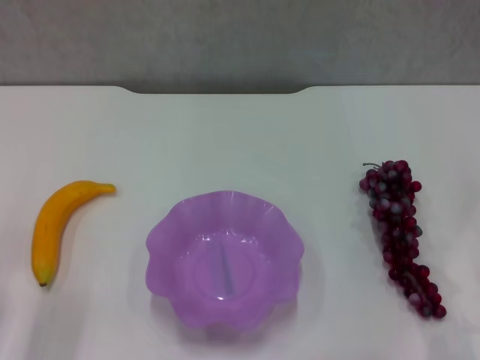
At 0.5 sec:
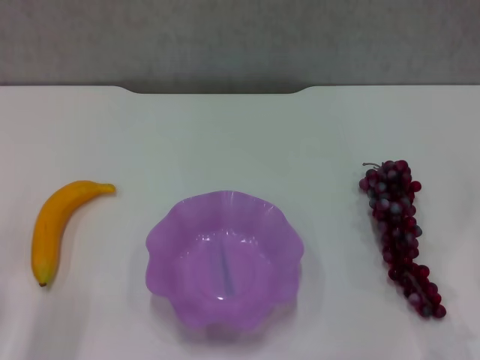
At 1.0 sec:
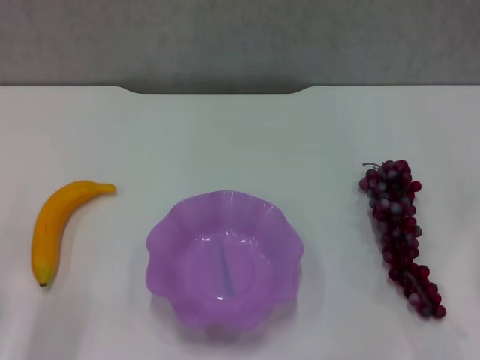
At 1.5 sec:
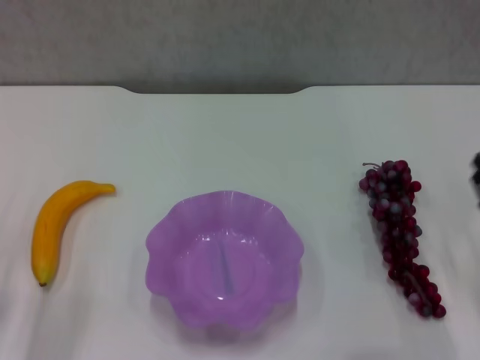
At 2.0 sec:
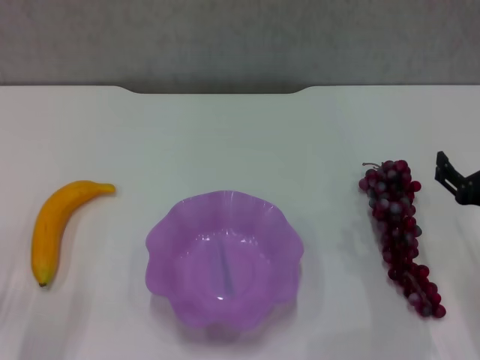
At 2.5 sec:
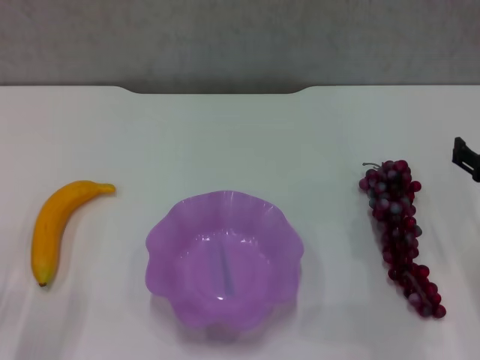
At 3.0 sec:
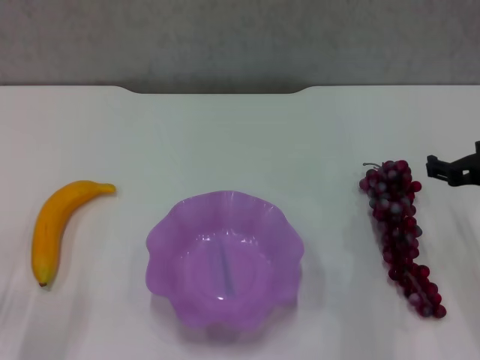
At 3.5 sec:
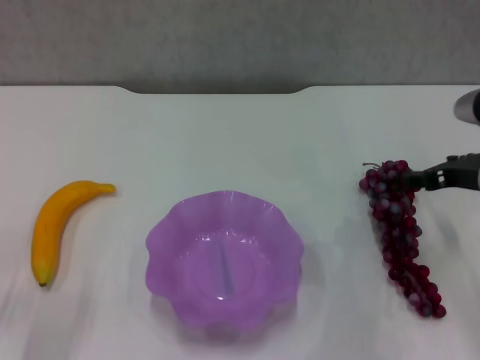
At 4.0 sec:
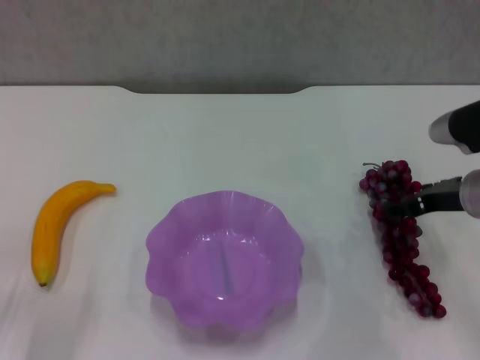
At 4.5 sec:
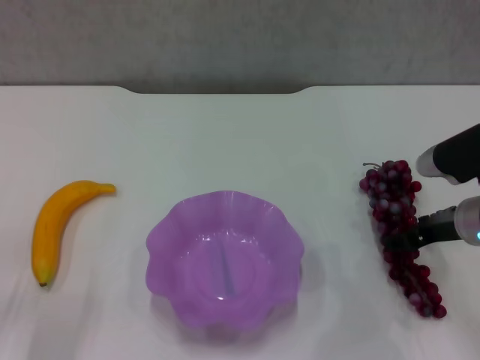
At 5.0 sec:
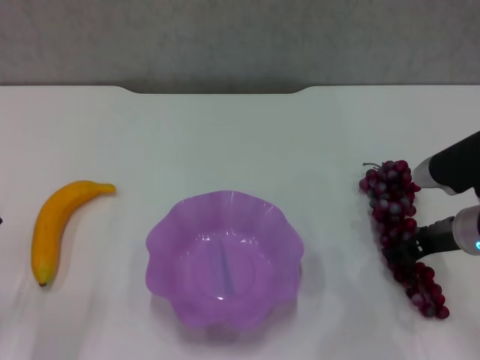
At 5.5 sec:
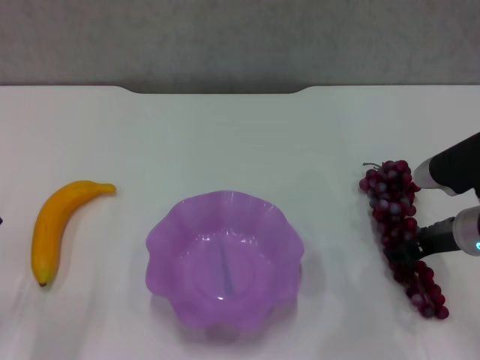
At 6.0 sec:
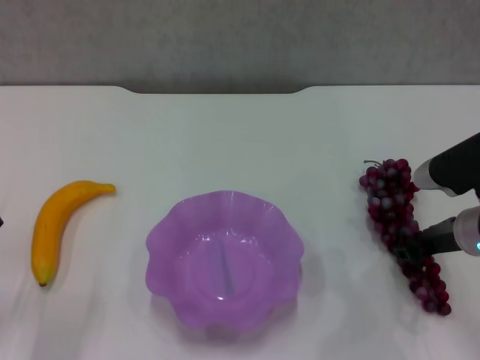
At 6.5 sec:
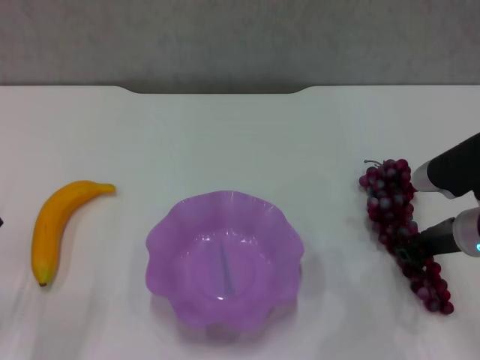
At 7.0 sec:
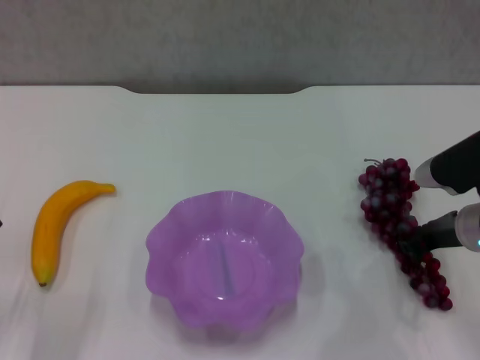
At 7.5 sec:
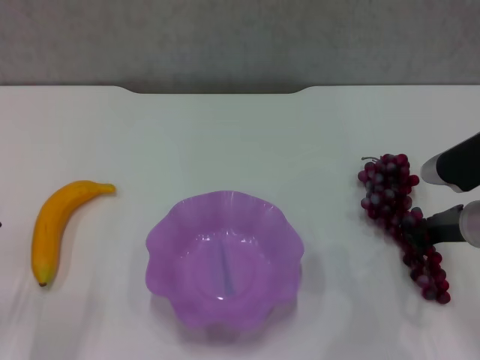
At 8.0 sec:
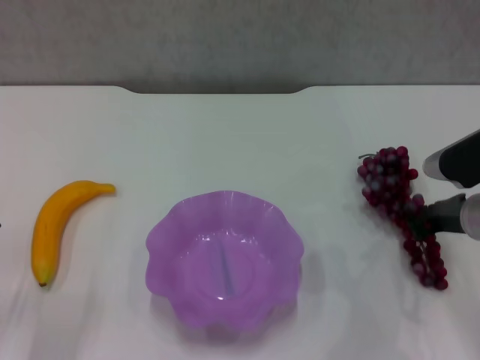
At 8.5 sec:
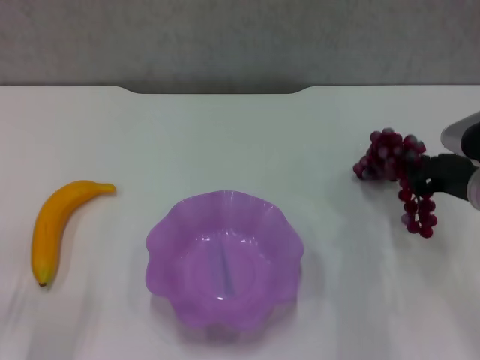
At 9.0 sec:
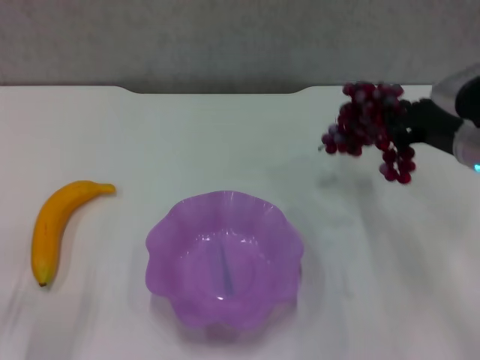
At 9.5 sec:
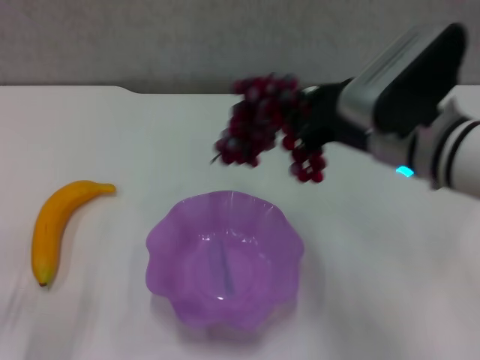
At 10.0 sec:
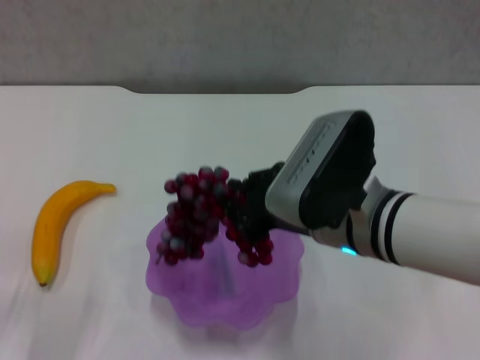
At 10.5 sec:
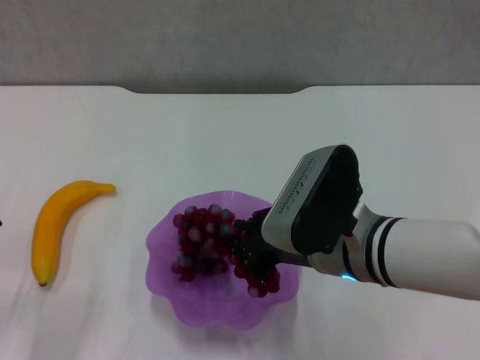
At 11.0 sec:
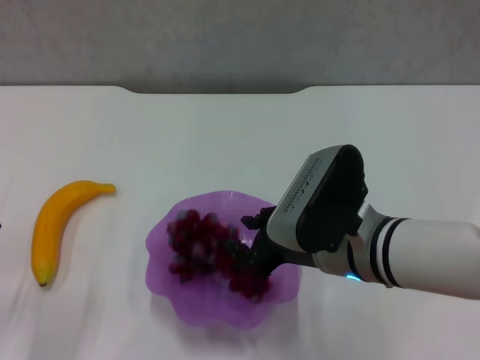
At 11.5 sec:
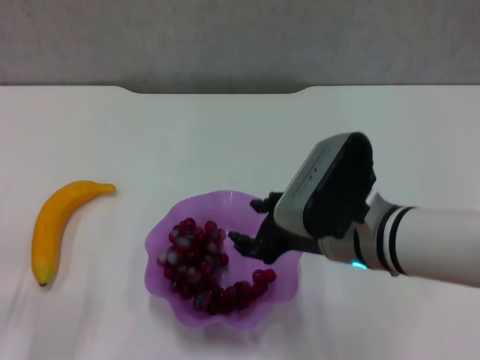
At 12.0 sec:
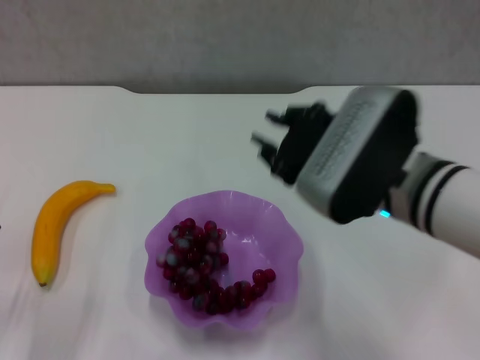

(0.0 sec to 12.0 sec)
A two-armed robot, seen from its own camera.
Step, 0.0 sec - 6.5 sec: Grasp the grape with right gripper.
Step, 7.5 sec - 11.5 sec: Place the grape in the purple plate with right gripper.
0.0 sec - 2.0 sec: The right gripper shifts by roughly 5 cm, and opens its fingers.
2.0 sec - 4.0 sec: The right gripper heads forward, covering roughly 10 cm.
4.0 sec - 6.0 sec: The grippers move only a little.
6.0 sec - 8.0 sec: The right gripper closes up.
8.0 sec - 10.0 sec: The right gripper is displaced to the left and upward by some 20 cm.
10.0 sec - 12.0 sec: The right gripper opens up.

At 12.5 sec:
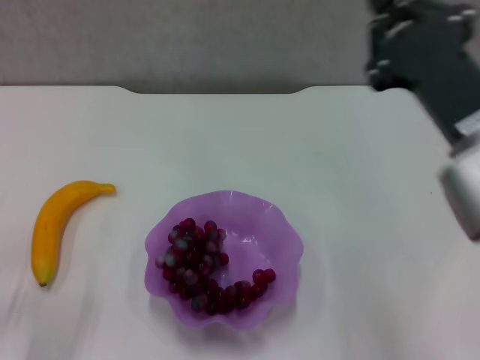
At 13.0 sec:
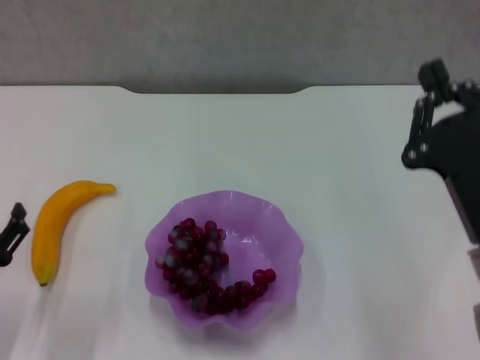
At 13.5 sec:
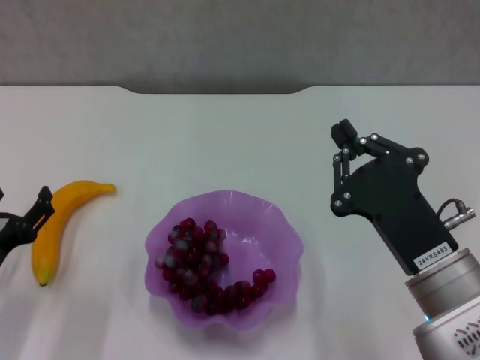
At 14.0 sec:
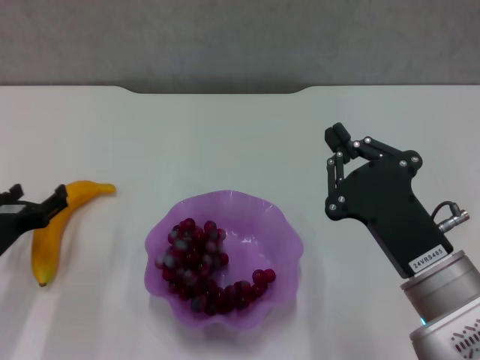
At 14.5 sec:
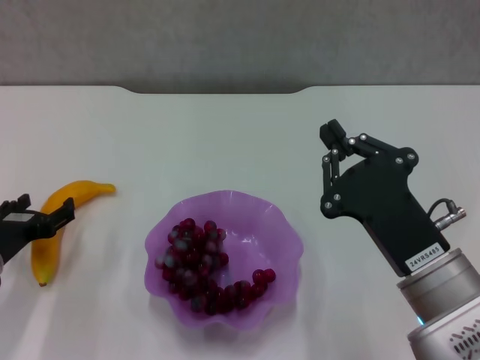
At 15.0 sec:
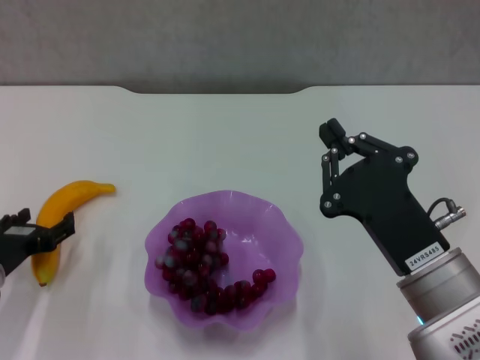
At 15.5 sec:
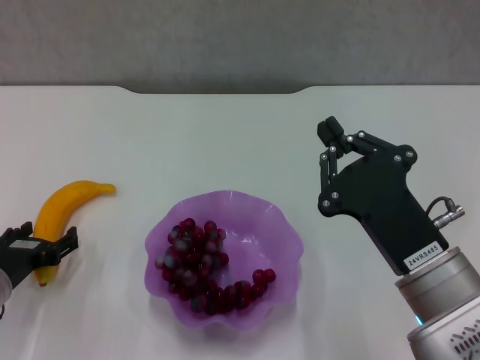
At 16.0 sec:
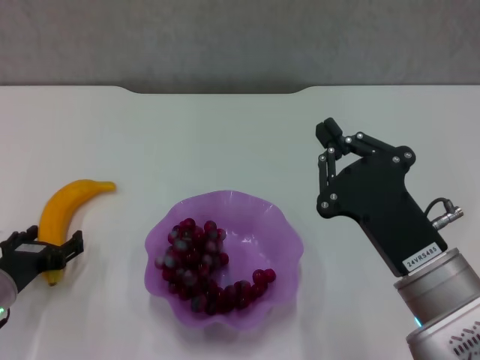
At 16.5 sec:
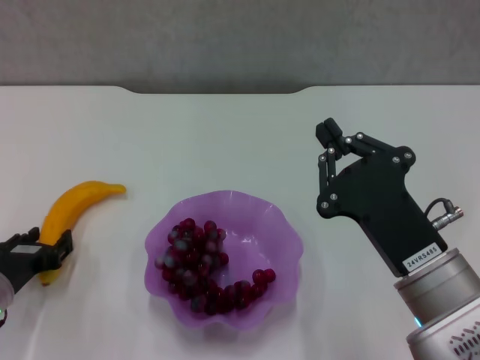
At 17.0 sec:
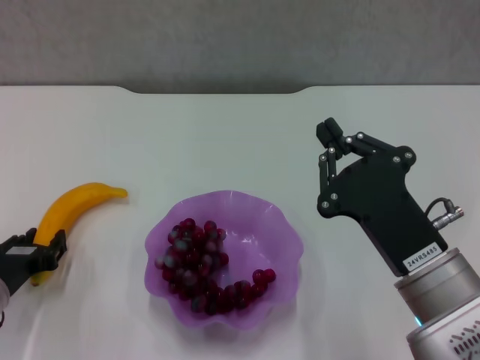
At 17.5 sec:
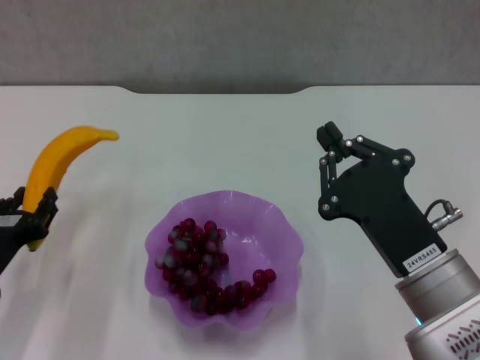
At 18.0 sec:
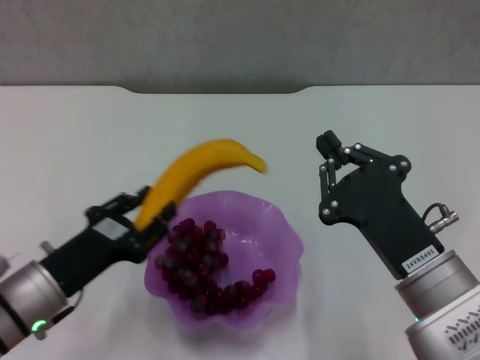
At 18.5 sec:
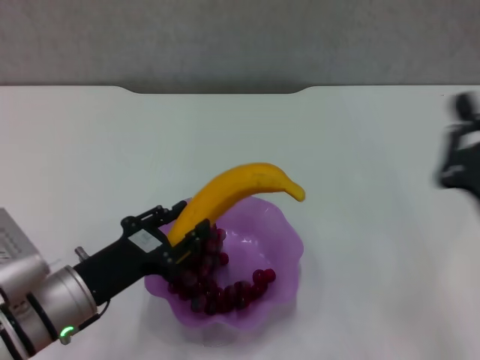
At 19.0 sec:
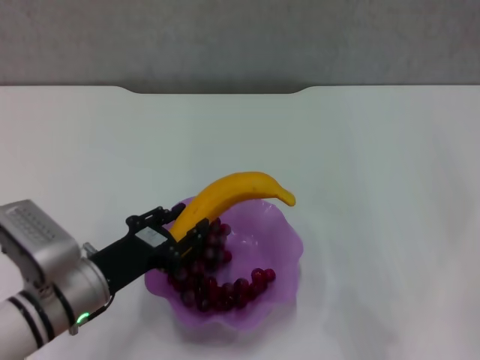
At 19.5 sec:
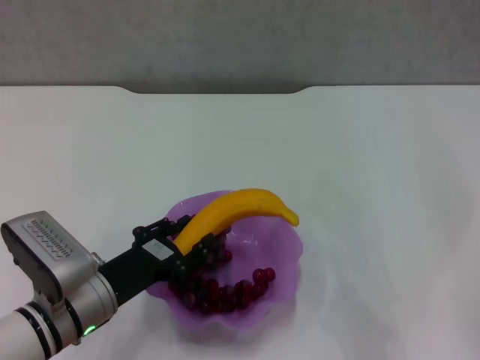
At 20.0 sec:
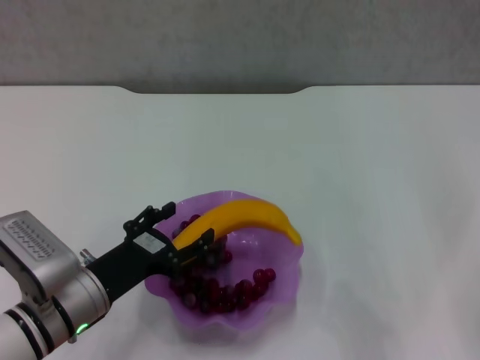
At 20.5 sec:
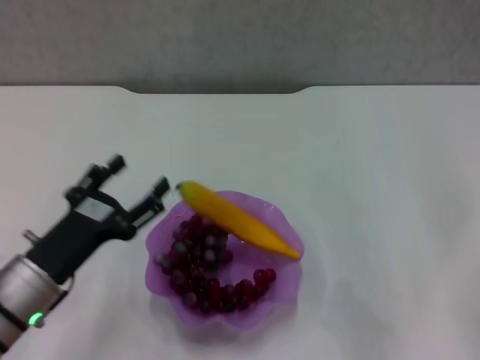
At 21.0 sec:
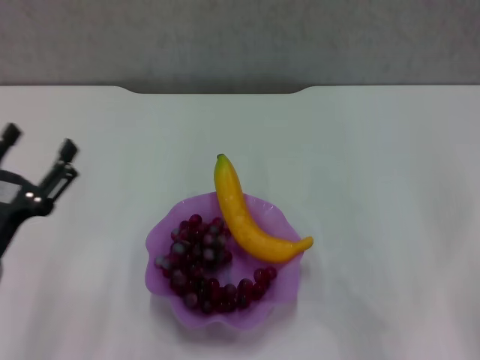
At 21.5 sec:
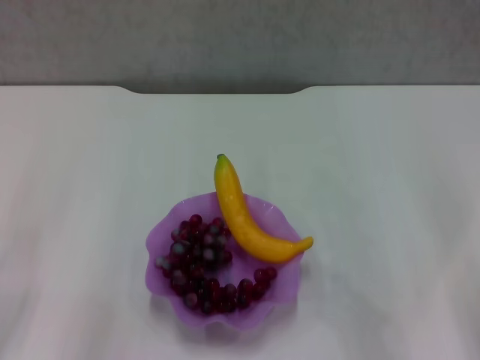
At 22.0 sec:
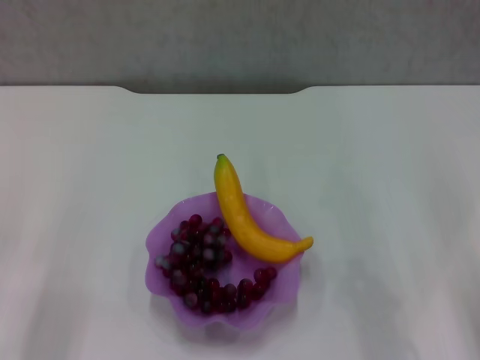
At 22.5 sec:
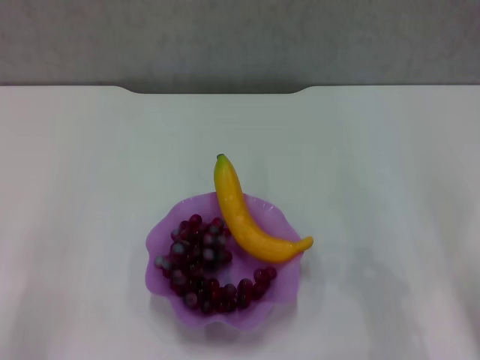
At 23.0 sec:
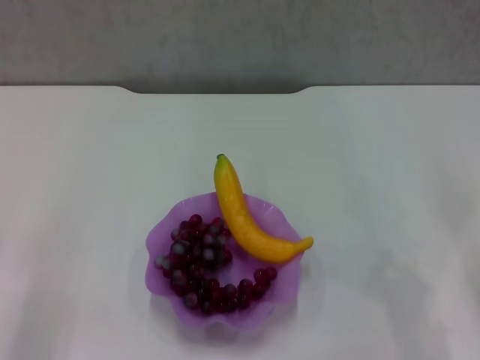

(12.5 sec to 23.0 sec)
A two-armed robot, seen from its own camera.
Step, 12.5 sec - 16.5 sec: Grasp the banana with left gripper.
Step, 17.0 sec - 20.5 sec: Place the banana in the purple plate with left gripper.
12.5 sec - 14.5 sec: The right gripper is displaced downward by approximately 10 cm; the left gripper goes roughly 10 cm forward.
14.5 sec - 16.5 sec: The grippers move only a little.
16.5 sec - 19.0 sec: Both grippers travel together to the right, some 10 cm.
19.0 sec - 21.0 sec: The left gripper heads to the left, covering some 5 cm, and opens.
21.0 sec - 23.0 sec: The left gripper goes about 10 cm to the left, and closes up.

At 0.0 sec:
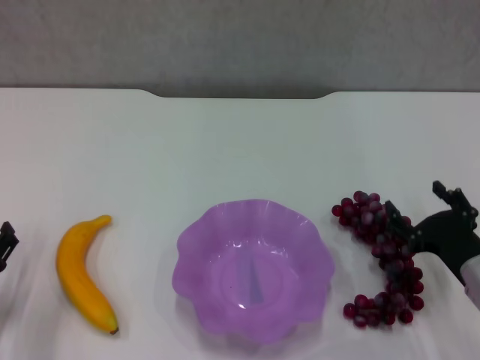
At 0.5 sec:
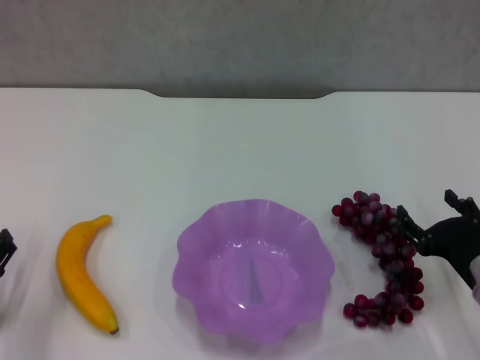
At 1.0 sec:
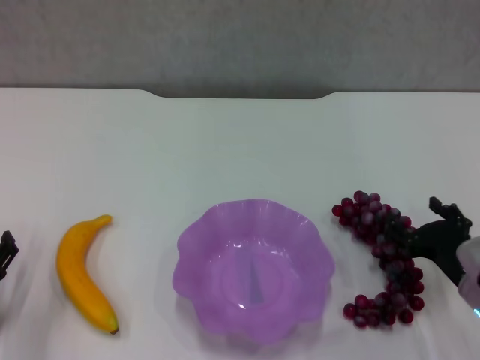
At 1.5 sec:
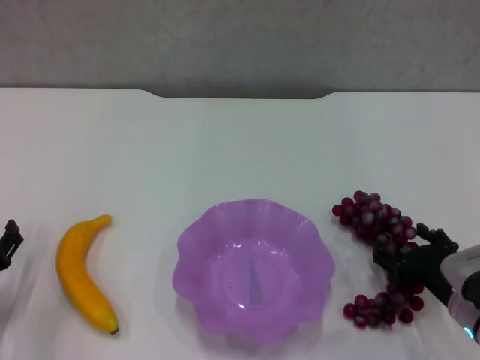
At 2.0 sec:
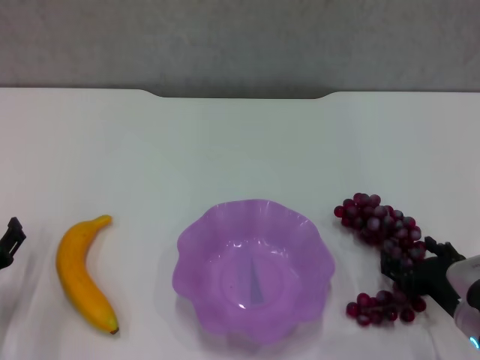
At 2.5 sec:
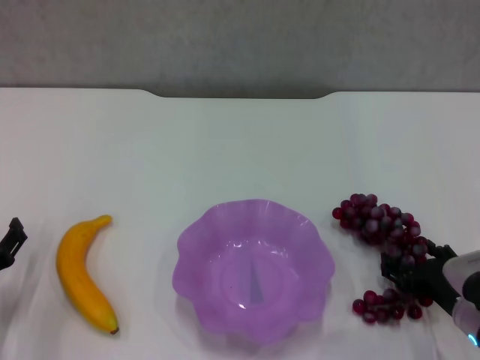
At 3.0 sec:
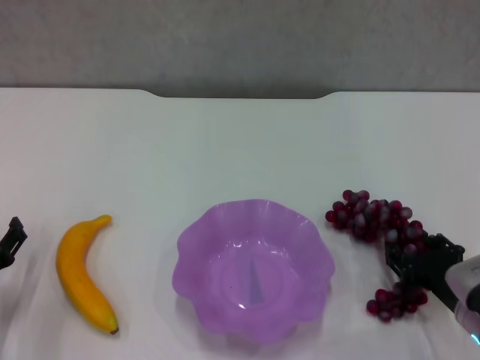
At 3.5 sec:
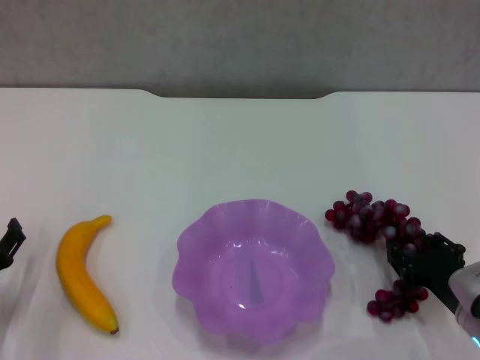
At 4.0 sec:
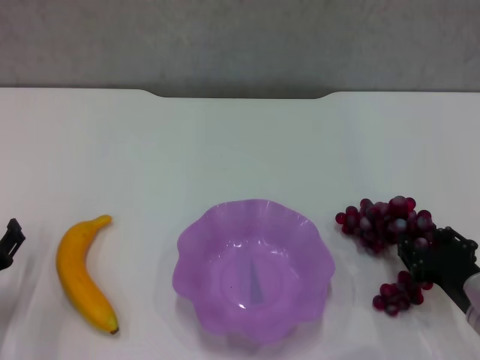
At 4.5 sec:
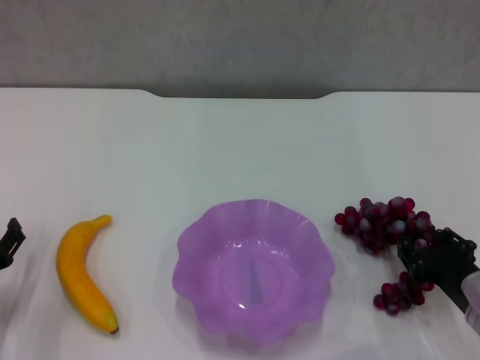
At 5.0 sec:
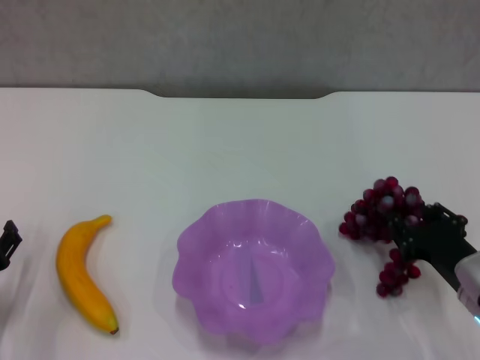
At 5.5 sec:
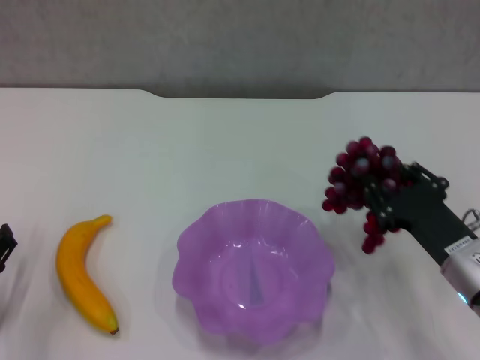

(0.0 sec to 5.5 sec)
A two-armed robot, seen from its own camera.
Step, 0.0 sec - 2.5 sec: Grasp the grape with right gripper.
0.0 sec - 2.0 sec: The grippers make only small movements.
2.0 sec - 3.5 sec: The right gripper closes up.
3.5 sec - 5.5 sec: The right gripper moves about 5 cm.
